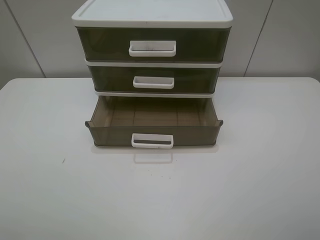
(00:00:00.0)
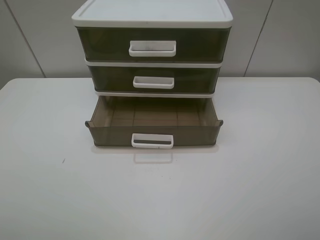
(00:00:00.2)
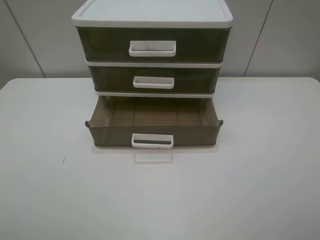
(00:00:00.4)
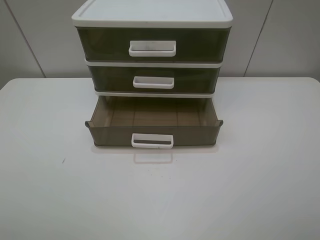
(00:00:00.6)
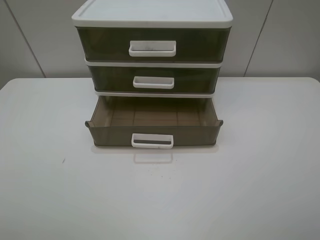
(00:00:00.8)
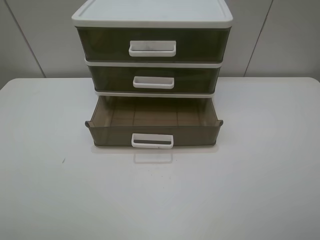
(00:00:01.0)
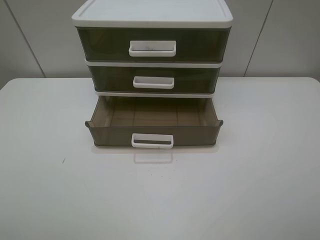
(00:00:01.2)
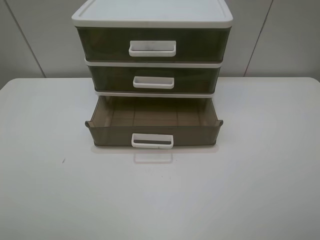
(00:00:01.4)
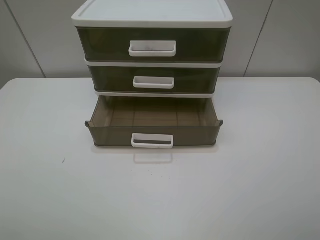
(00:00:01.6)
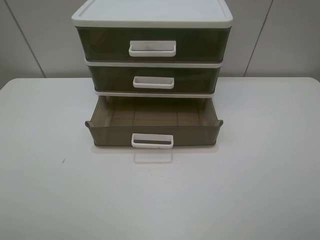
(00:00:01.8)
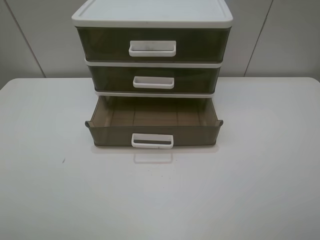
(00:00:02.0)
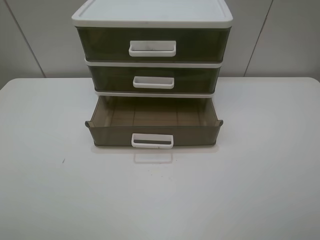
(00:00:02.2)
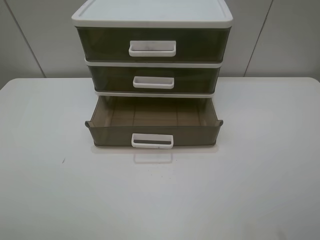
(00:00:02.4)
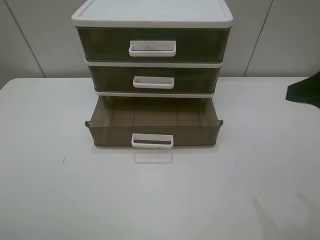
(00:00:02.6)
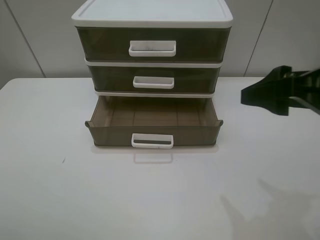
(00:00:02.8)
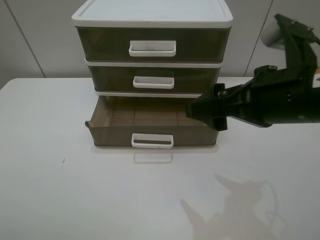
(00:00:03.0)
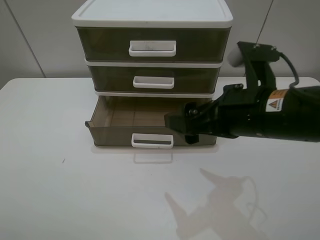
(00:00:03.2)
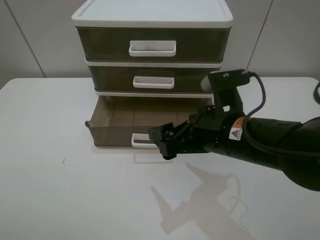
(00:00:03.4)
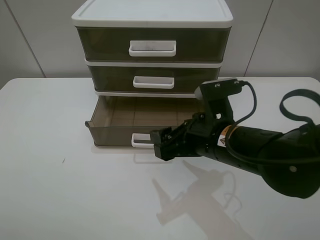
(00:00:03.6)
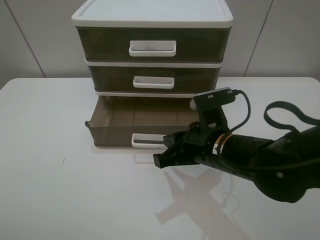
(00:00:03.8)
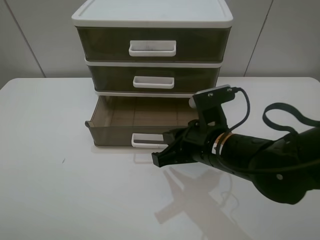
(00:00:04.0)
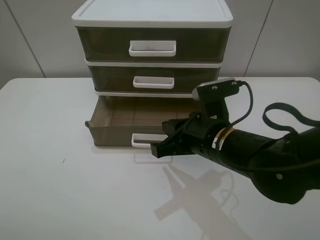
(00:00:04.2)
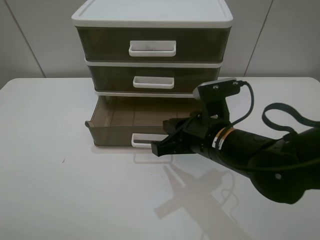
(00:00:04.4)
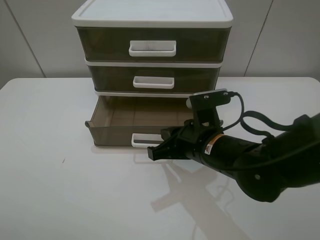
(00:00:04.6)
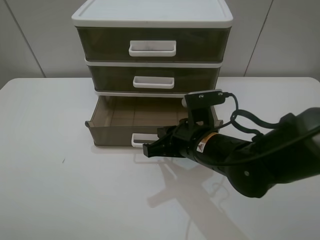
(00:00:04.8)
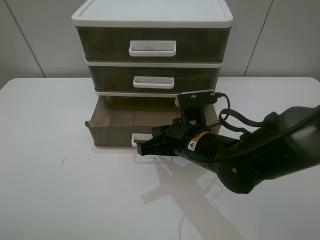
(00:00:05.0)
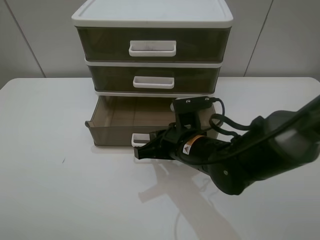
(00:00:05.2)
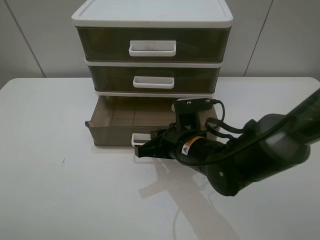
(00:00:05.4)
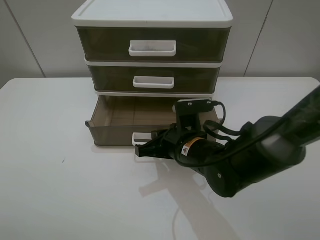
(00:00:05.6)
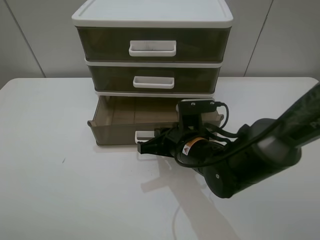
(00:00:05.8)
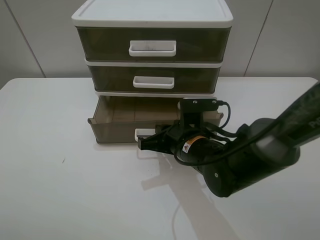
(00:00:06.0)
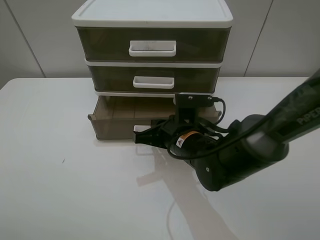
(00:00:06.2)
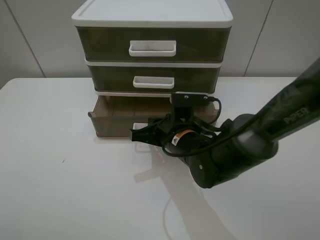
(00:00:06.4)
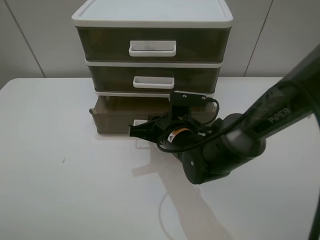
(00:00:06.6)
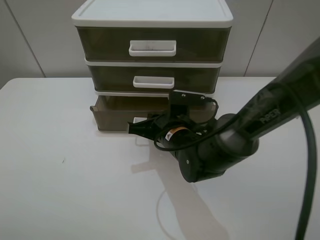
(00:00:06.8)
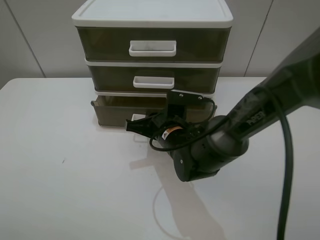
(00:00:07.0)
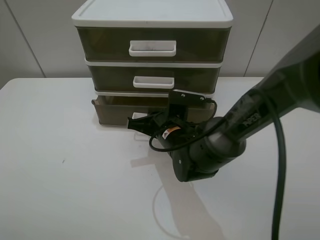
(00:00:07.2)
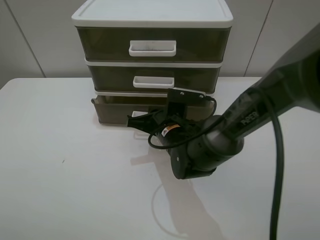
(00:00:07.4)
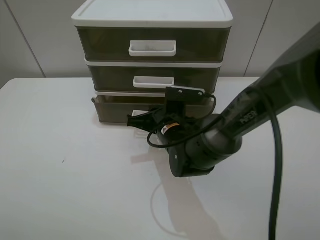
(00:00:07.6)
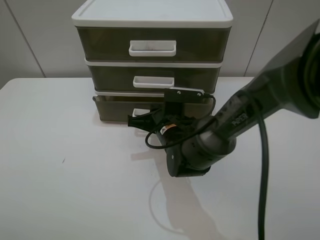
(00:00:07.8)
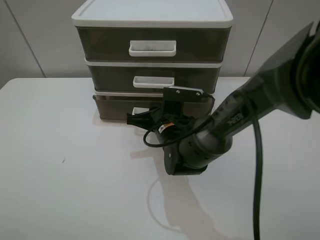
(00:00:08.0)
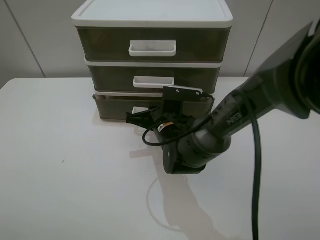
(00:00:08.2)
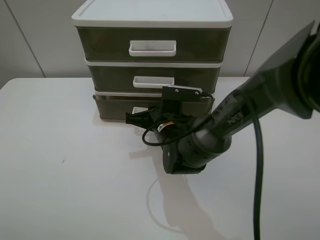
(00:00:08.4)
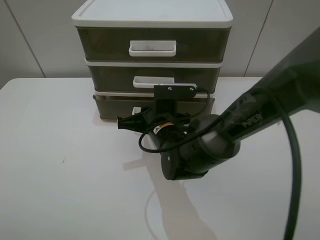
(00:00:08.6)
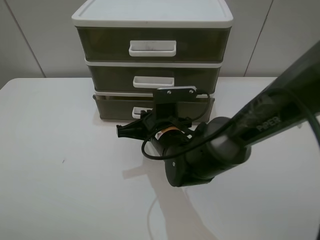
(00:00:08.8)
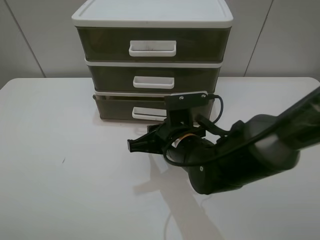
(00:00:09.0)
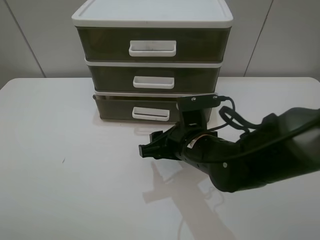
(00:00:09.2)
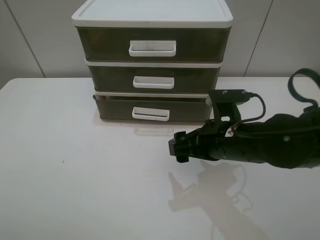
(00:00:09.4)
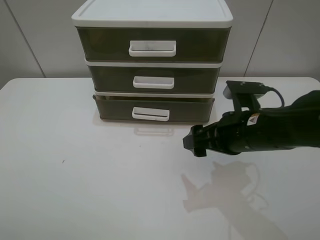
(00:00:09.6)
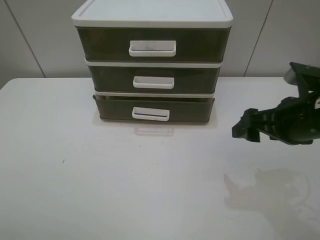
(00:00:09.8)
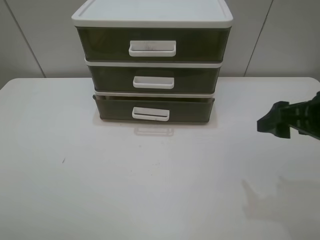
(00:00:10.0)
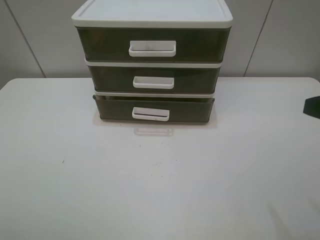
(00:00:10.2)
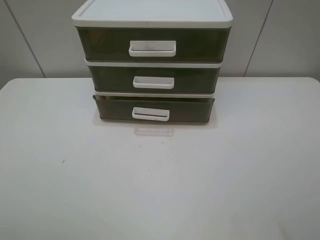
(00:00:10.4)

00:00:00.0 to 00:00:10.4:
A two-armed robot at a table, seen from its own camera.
Task of the whole recording: close the bottom drawer.
Step, 00:00:00.0 to 00:00:05.8: Use the right gripper to contact the bottom layer of the storage cabinet.
Step, 00:00:06.0 to 00:00:08.4: Push the bottom drawer closed.
00:00:00.0 to 00:00:01.4: Both grippers stay put.
00:00:01.4 to 00:00:03.0: The right gripper is displaced forward and to the left by some 20 cm.
00:00:03.0 to 00:00:04.4: The right gripper moves downward and to the left, some 15 cm, and closes.
00:00:04.4 to 00:00:06.0: The right gripper shifts roughly 5 cm downward.
00:00:06.0 to 00:00:07.4: The right gripper shifts by about 5 cm.
00:00:07.4 to 00:00:09.0: The right gripper shifts roughly 5 cm backward.
00:00:09.0 to 00:00:10.4: The right gripper travels to the right, upward and backward by about 35 cm, and opens up.
